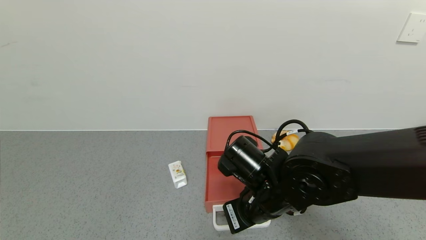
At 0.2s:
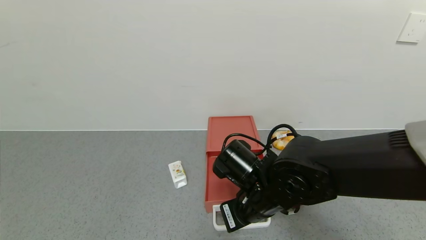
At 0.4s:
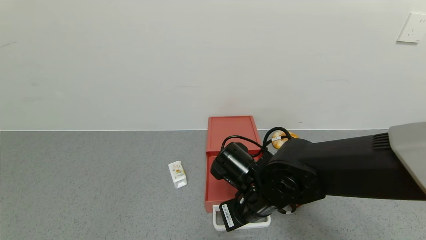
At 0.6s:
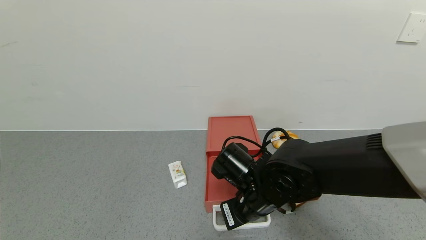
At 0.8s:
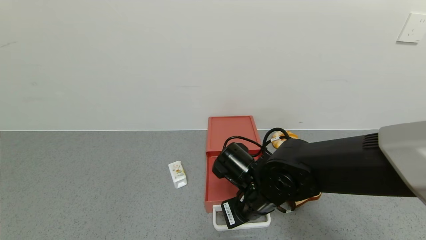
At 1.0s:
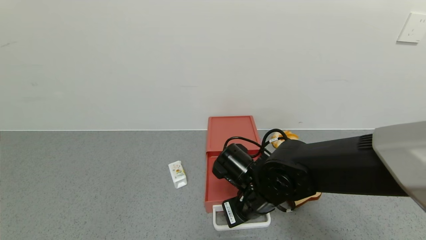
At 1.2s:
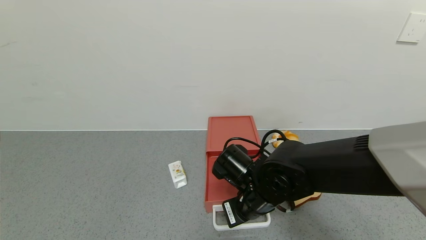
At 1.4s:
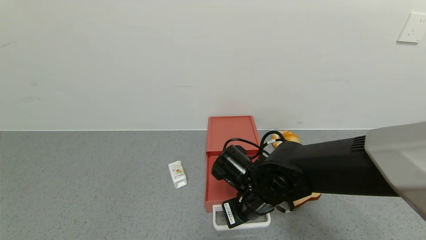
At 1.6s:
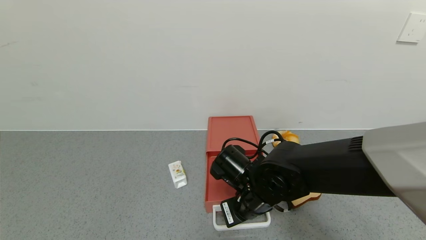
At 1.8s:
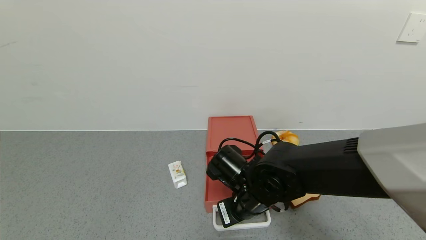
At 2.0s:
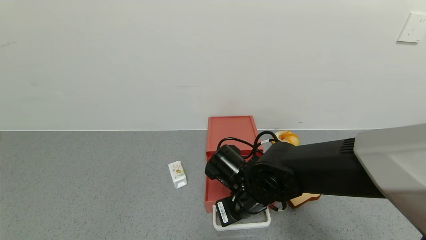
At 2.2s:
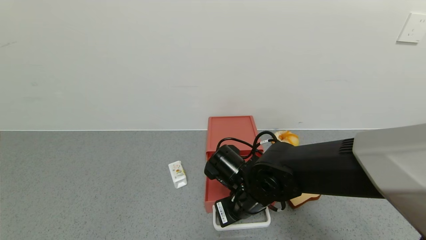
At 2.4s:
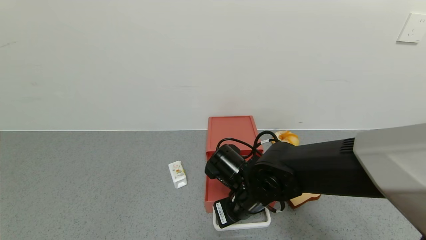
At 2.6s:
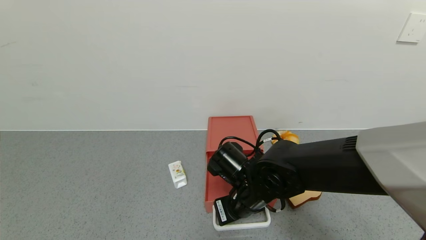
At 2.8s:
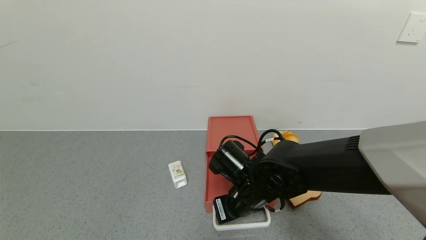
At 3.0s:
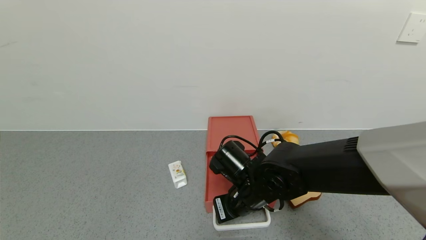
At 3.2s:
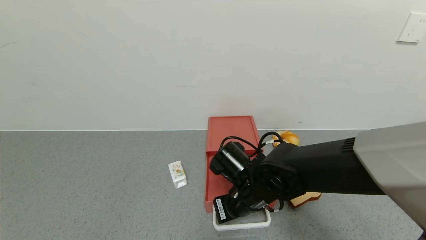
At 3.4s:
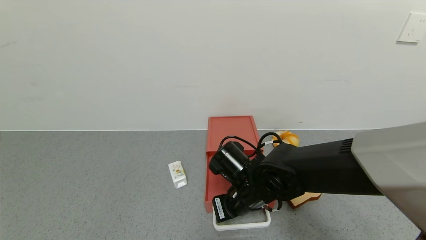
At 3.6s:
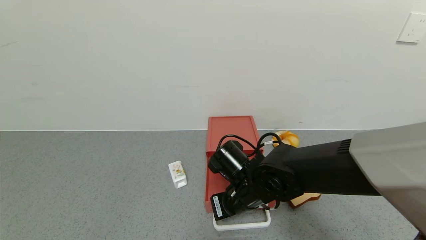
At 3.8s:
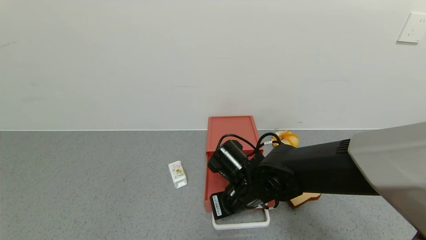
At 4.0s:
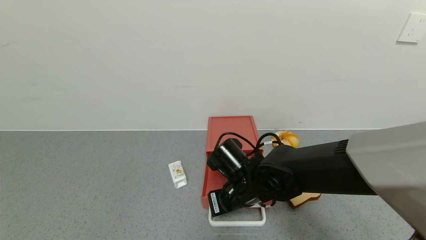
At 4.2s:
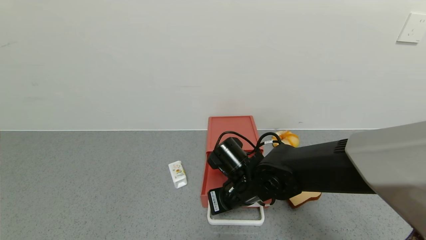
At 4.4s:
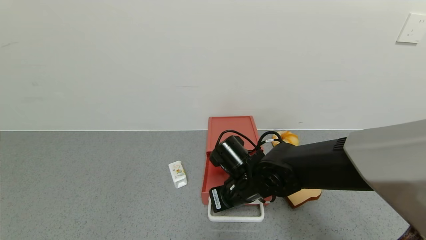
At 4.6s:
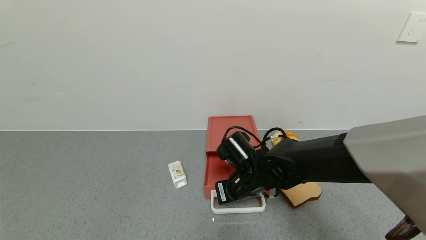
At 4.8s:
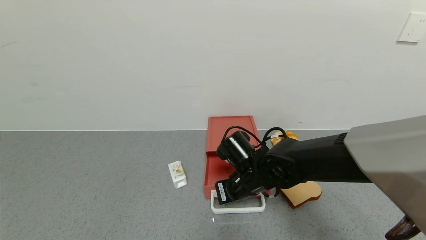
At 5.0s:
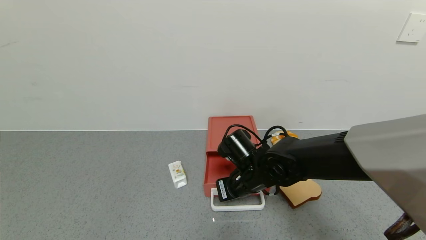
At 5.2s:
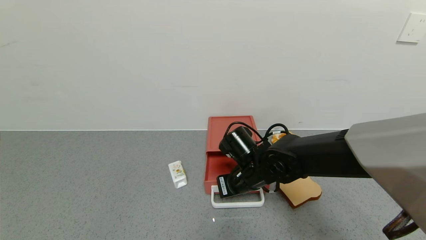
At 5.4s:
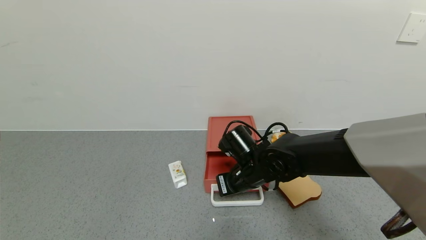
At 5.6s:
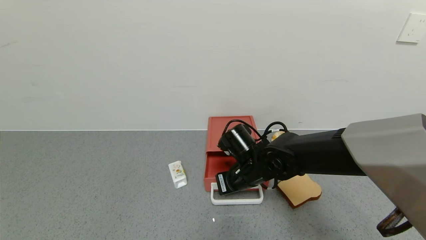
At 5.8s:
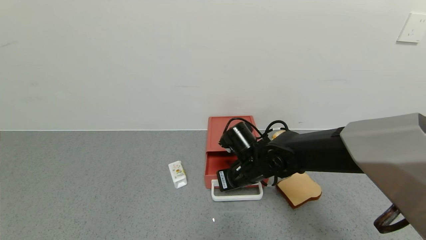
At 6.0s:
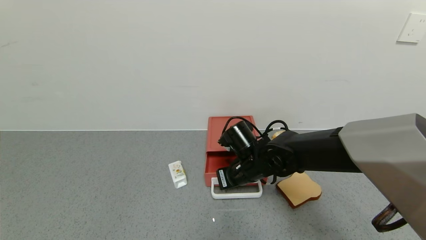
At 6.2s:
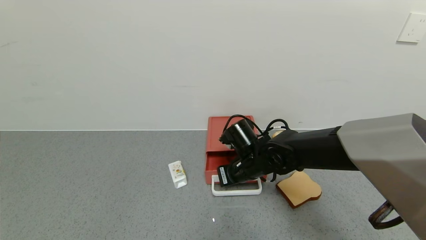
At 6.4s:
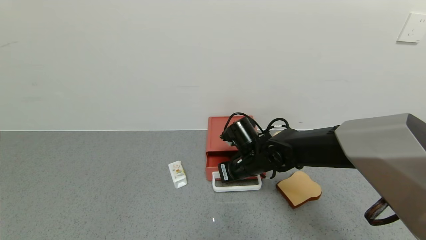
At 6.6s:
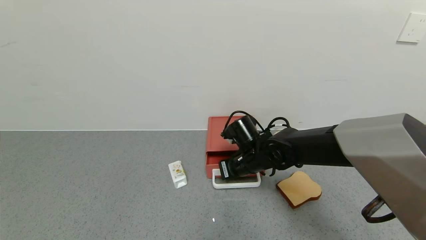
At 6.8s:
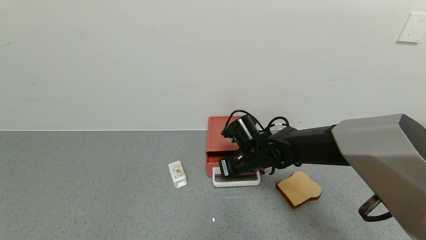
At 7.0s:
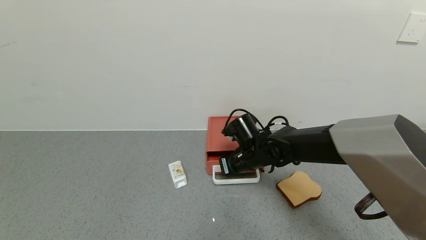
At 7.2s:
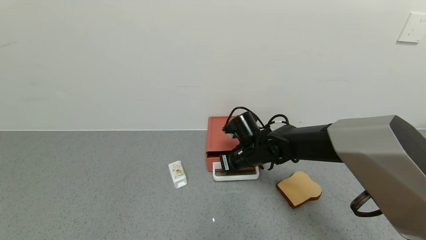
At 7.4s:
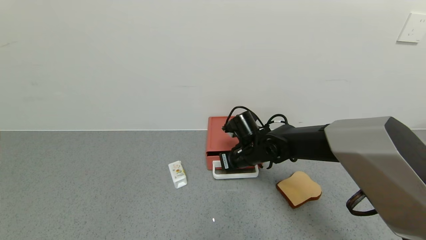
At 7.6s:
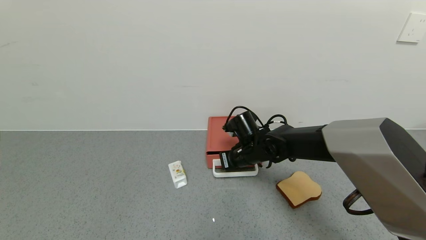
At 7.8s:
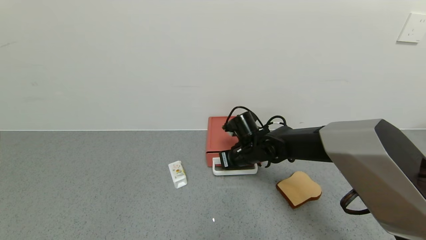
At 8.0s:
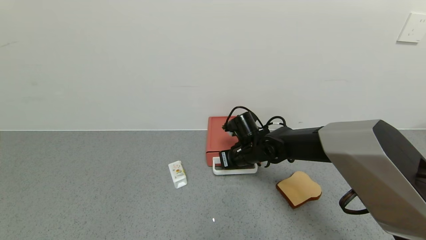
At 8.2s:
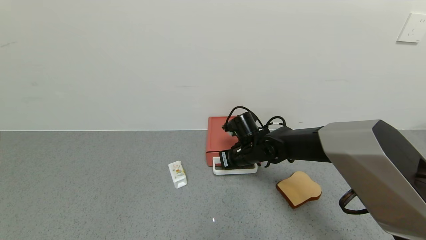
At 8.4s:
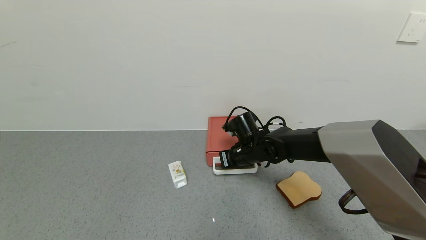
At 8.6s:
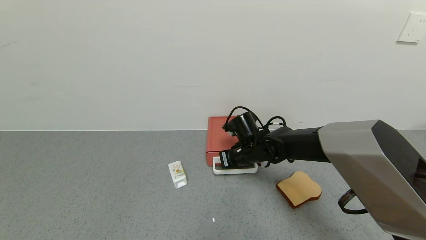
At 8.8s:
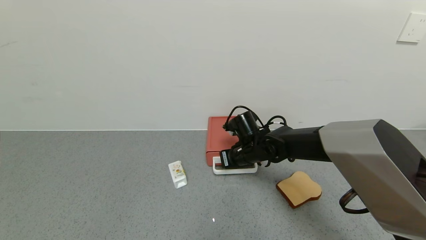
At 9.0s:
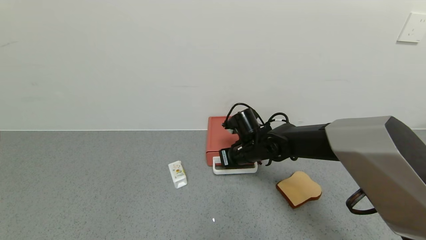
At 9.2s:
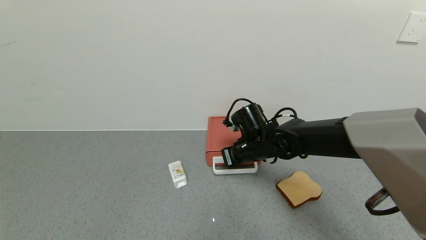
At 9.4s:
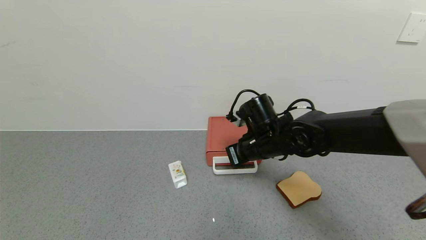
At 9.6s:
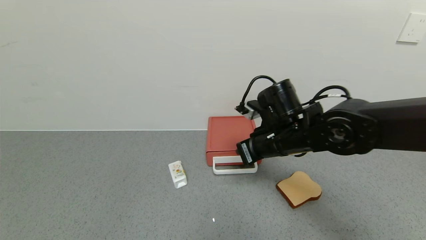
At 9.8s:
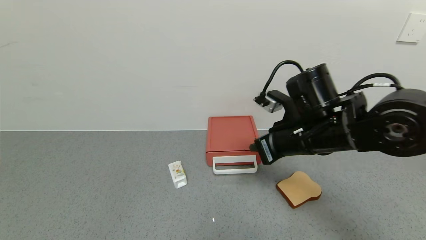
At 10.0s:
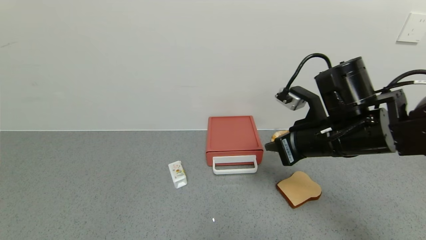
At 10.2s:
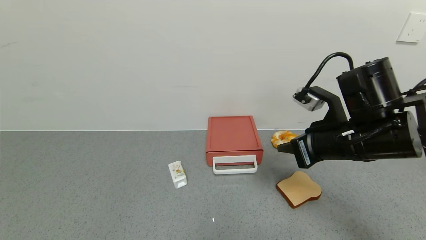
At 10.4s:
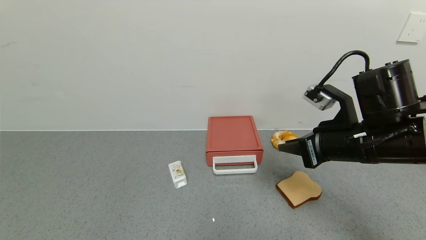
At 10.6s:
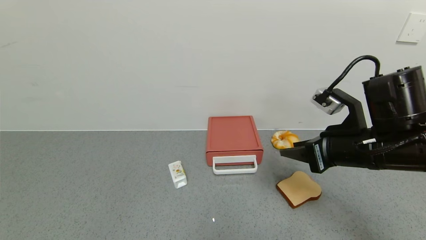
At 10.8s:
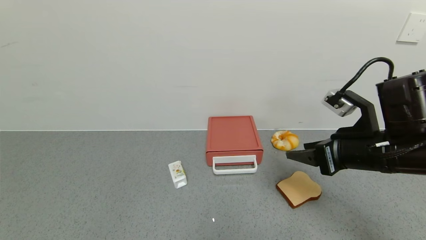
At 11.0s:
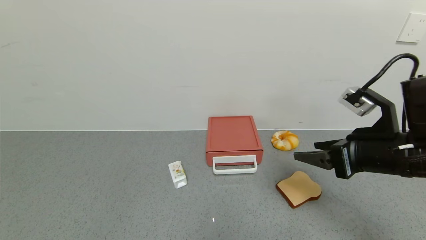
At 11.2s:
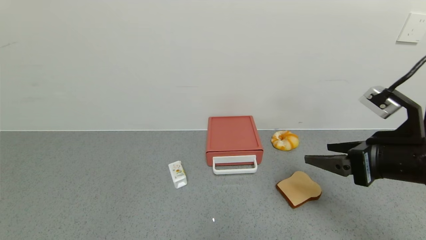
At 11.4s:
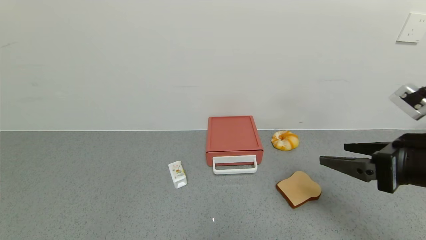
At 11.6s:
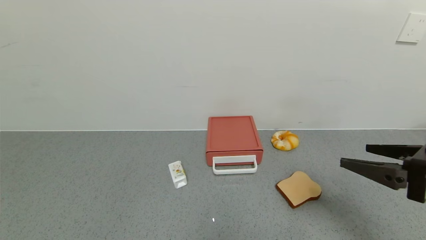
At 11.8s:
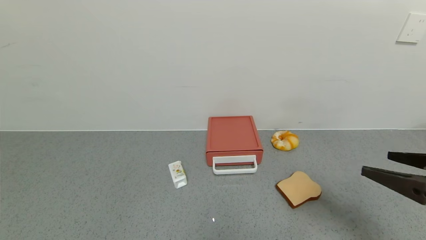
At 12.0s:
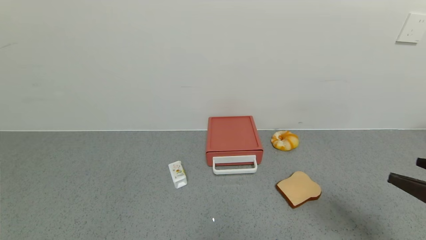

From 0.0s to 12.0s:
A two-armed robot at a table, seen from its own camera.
Task of the whole recording: use the gripper to open the drawer and close the red drawer.
Step, from 0.0s to 9.0s: Close the red drawer with the right gripper.
From 0.0s to 3.0s: The grippers stay close to where they were, moving slightly.
From 3.0s to 4.4s: The grippers make only small movements.
From 4.4s to 6.0s: The grippers stay close to where they were, moving slightly.
From 6.0s to 7.6s: The right gripper shifts some 5 cm forward.
From 7.6s to 9.0s: Neither gripper changes place.
From 9.0s to 10.4s: The right gripper moves to the right, backward and upward, approximately 25 cm.
From 10.4s to 12.0s: The right gripper is displaced backward and to the right by approximately 20 cm, and opens its fingers.

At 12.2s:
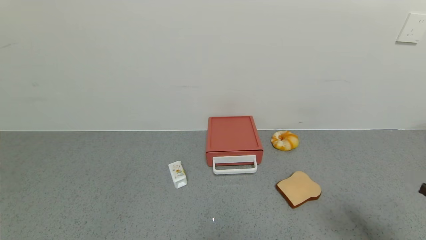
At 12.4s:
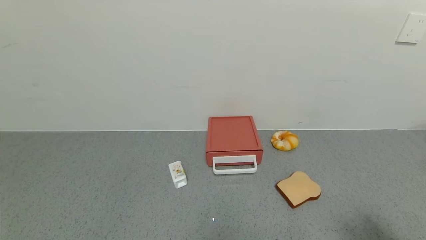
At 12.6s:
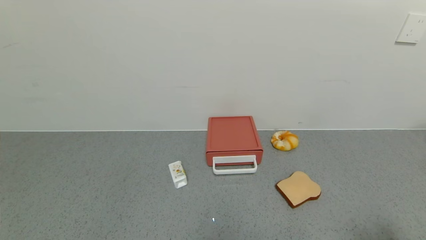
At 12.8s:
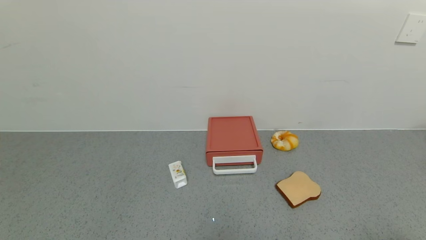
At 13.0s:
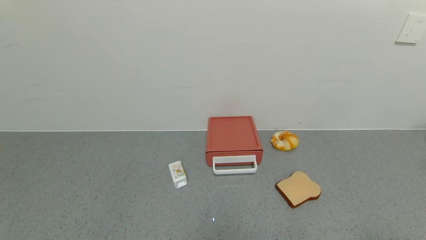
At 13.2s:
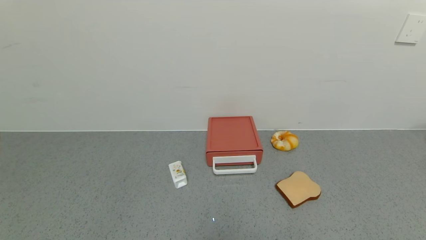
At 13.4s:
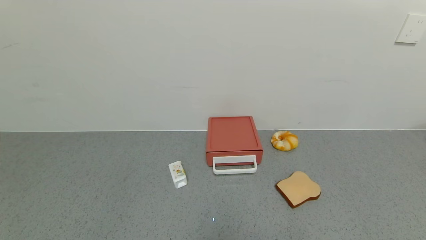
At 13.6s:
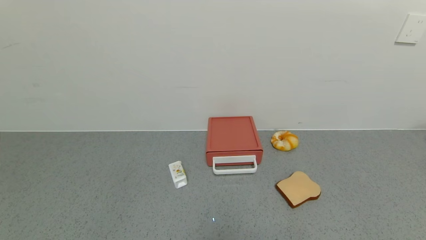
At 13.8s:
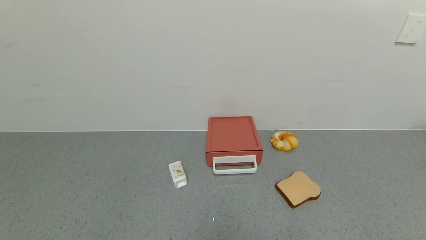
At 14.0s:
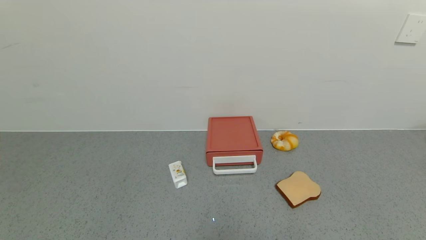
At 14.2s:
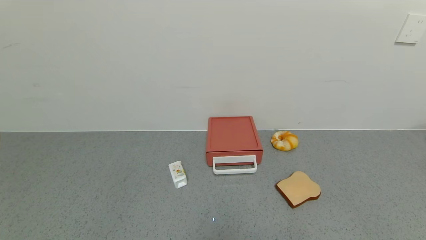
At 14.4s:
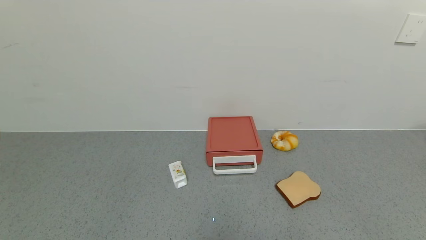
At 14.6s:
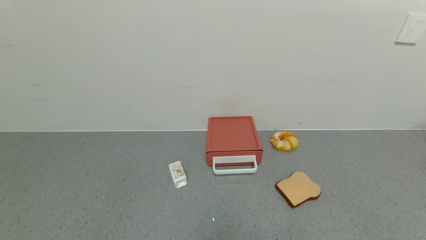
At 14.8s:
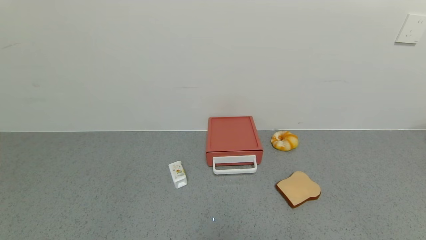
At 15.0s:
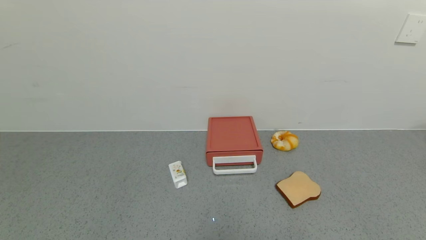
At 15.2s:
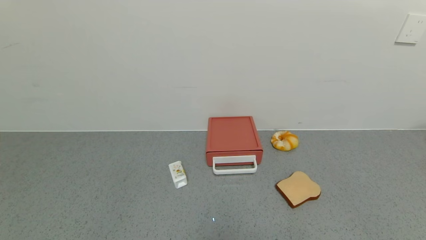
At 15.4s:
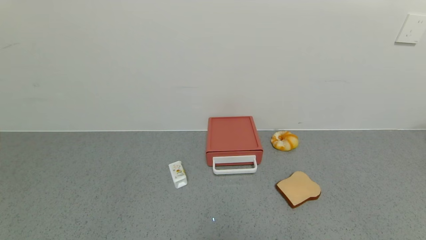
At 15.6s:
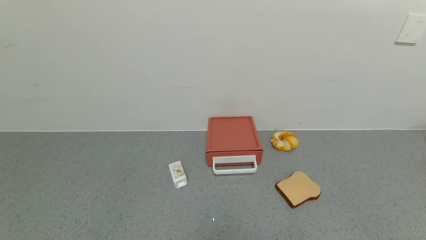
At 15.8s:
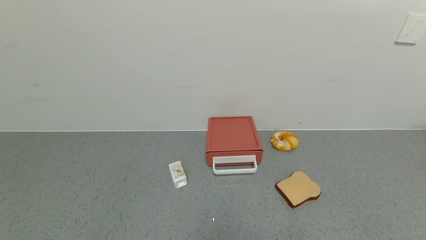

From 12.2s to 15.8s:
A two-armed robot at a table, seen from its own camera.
Task of the whole recording: use the gripper to open the drawer and close the red drawer.
From 12.2s to 14.0s: The right gripper heads downward and backward, covering about 15 cm.

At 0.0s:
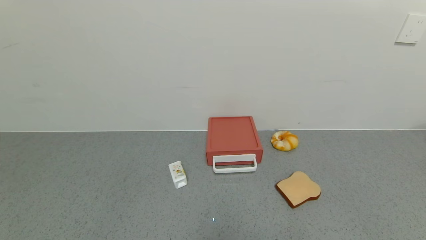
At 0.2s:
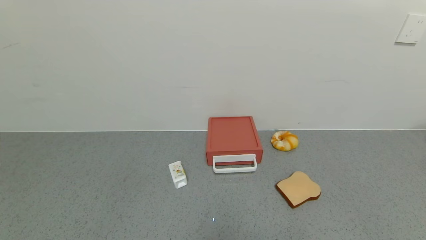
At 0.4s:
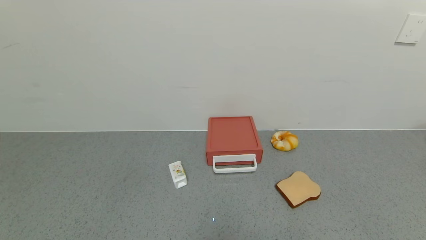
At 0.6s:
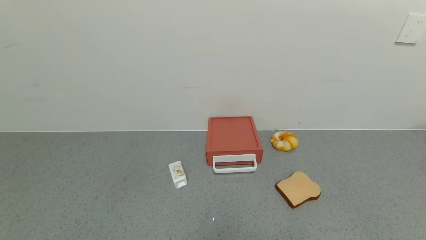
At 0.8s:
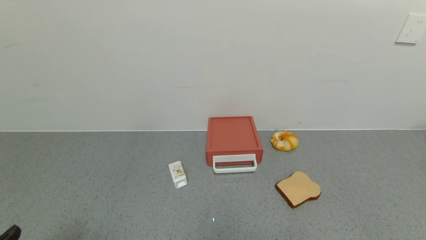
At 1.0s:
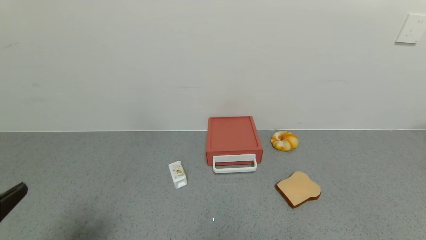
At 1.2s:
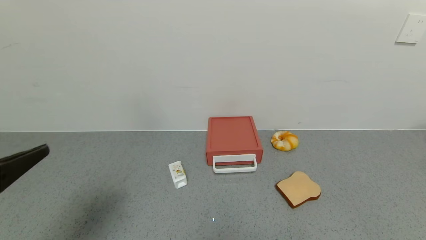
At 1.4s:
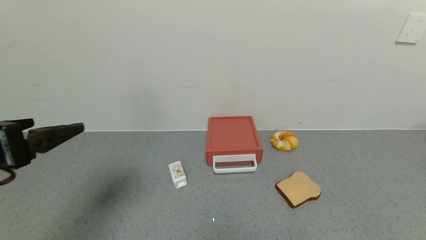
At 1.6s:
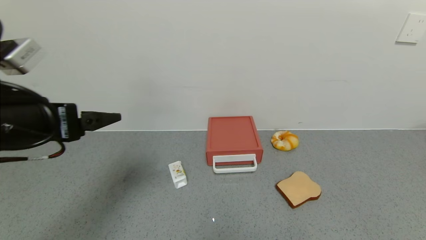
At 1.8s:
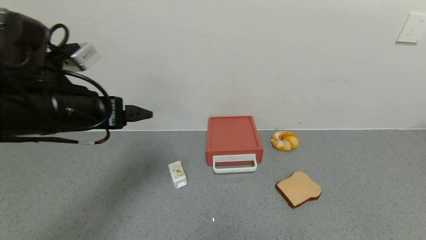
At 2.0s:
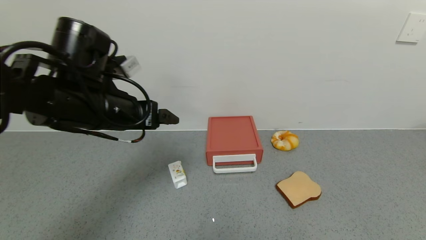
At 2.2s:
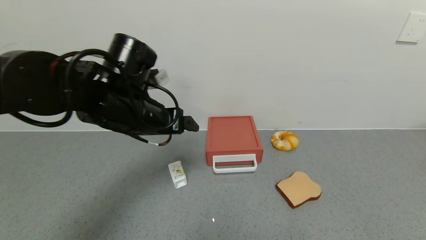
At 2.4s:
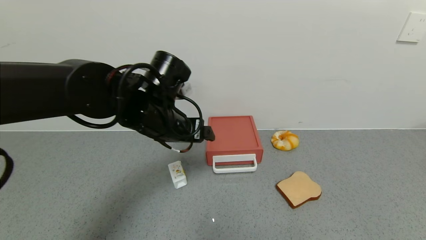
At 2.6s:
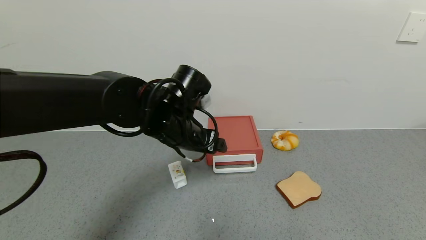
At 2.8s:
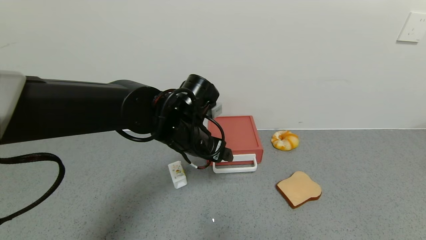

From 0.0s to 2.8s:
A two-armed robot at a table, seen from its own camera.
Task of the whole recording: use the gripper to open the drawer and close the red drawer.
From 0.0s to 1.4s: The left gripper is displaced upward and forward by approximately 25 cm.
From 1.4s to 2.8s: The left gripper goes approximately 25 cm to the right and forward.
